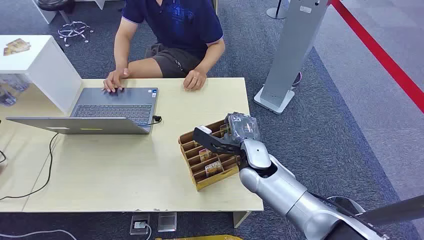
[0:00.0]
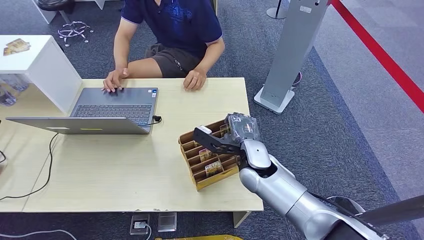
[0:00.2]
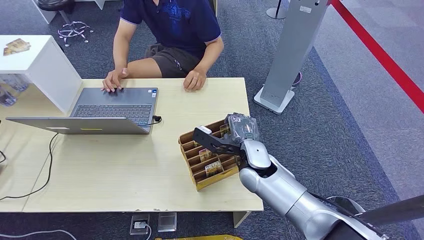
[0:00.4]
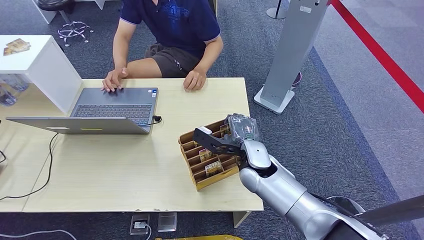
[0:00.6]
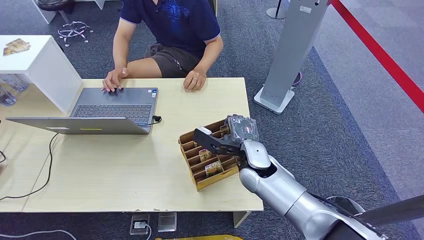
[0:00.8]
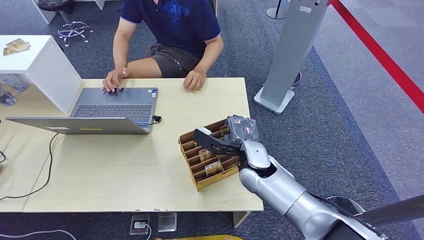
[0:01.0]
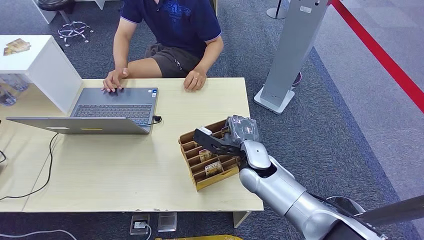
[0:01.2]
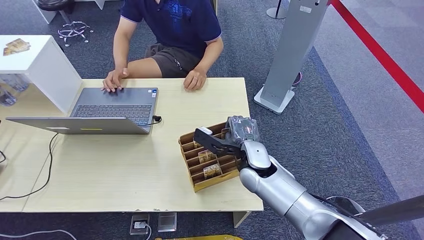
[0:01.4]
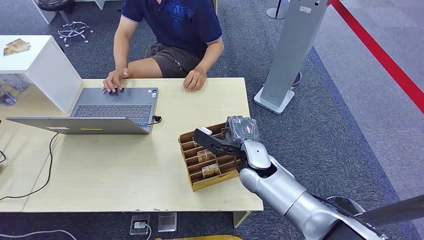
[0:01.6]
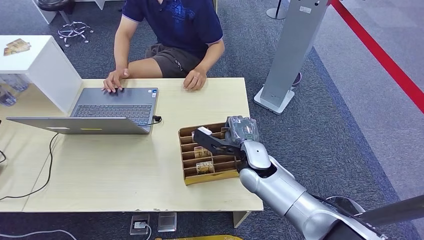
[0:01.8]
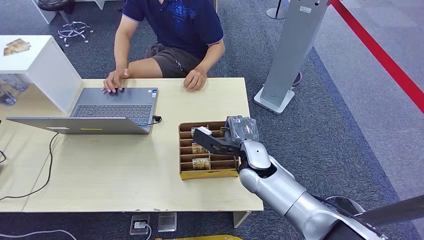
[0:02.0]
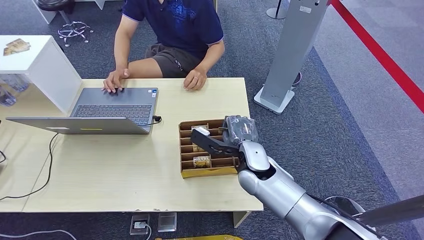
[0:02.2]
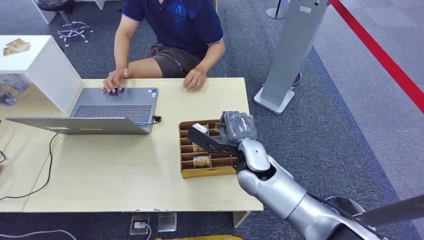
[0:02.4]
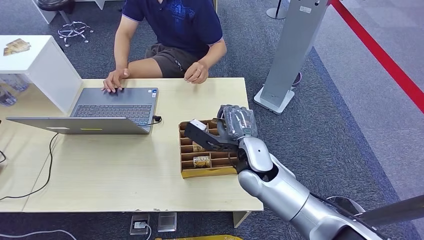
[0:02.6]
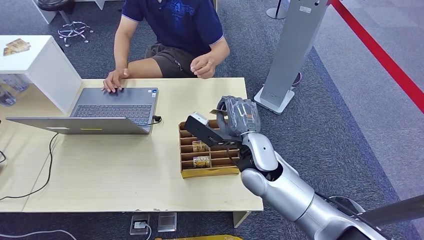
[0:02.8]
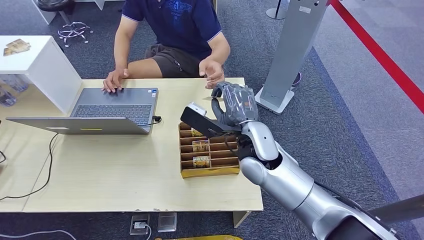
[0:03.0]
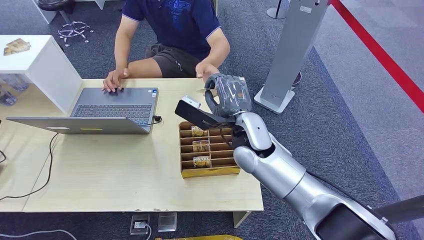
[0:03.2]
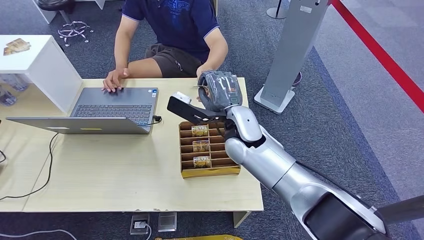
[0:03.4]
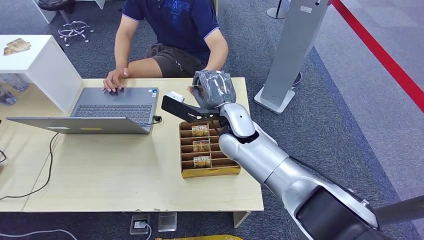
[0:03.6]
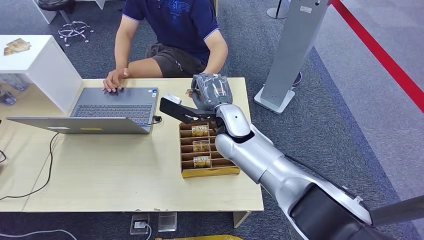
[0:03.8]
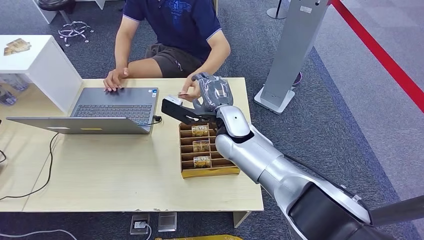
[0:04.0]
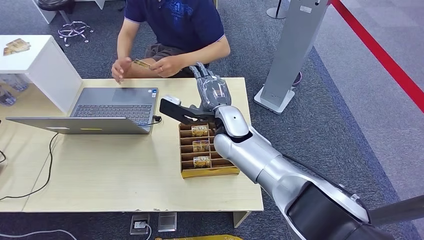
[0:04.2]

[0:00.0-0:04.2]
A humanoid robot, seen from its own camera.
Step, 0:00.0 to 0:02.4: Pick up the key card from the card box.
Step, 0:02.8 to 0:04.2: Hand the key card to the target.
0:01.4 to 0:02.8: The right hand heads upward, covering some 5 cm.
0:02.8 to 0:04.2: The right hand travels forward and to the left by roughly 10 cm.
